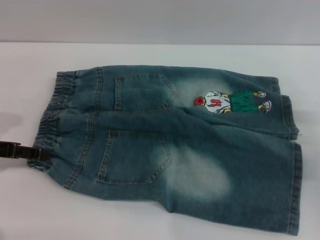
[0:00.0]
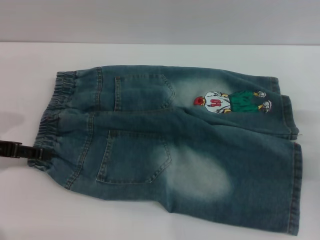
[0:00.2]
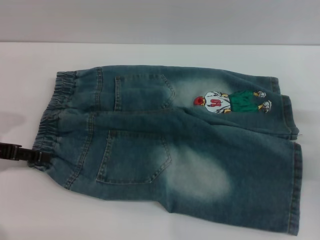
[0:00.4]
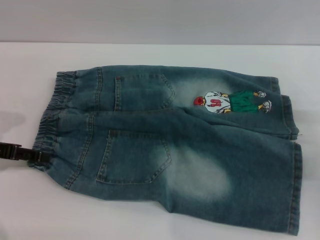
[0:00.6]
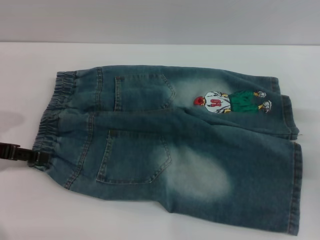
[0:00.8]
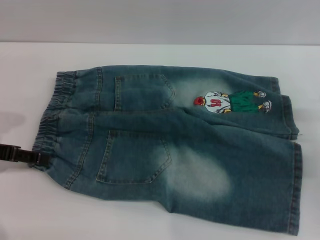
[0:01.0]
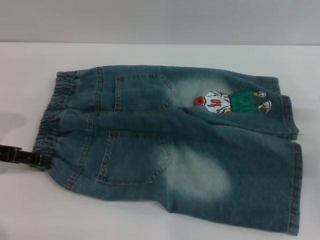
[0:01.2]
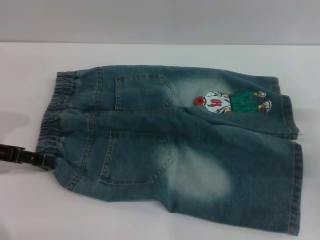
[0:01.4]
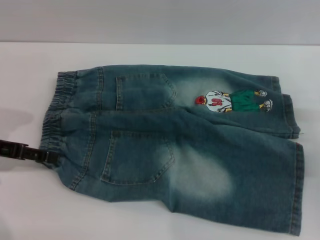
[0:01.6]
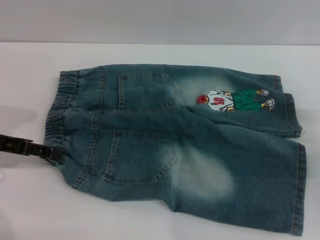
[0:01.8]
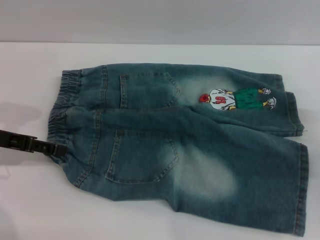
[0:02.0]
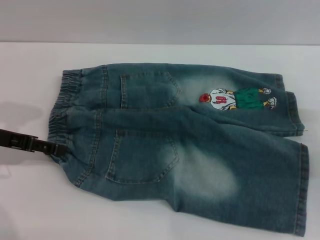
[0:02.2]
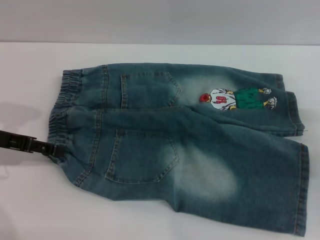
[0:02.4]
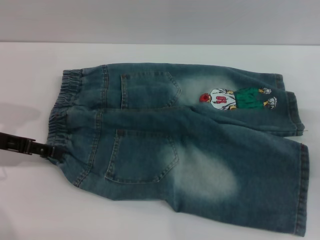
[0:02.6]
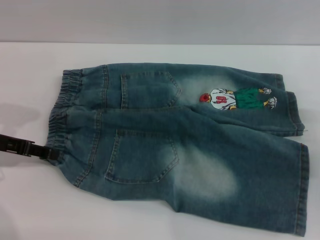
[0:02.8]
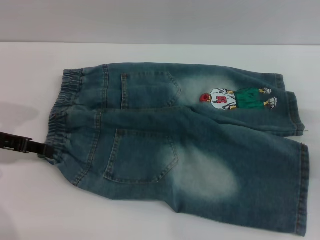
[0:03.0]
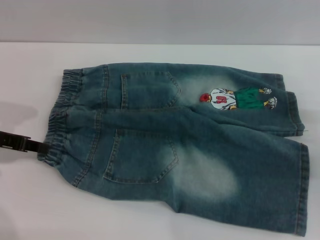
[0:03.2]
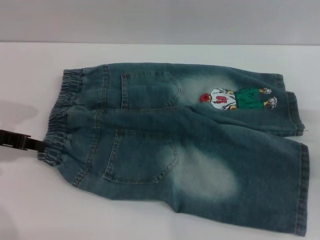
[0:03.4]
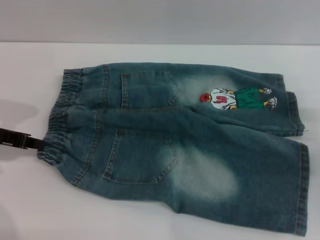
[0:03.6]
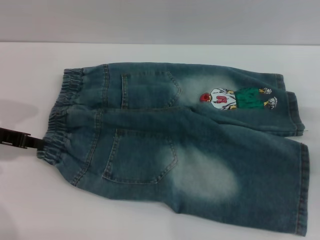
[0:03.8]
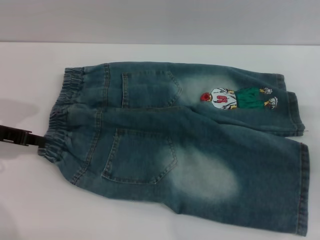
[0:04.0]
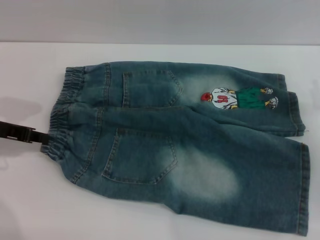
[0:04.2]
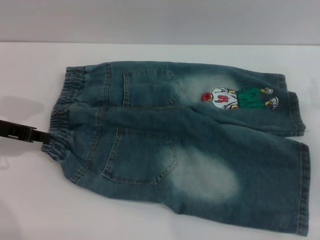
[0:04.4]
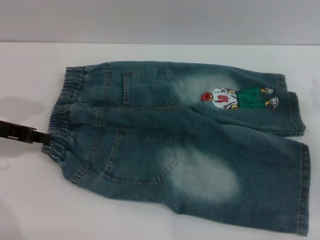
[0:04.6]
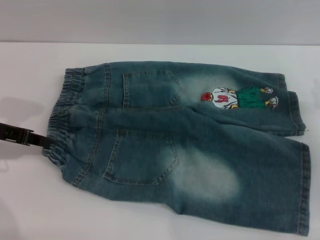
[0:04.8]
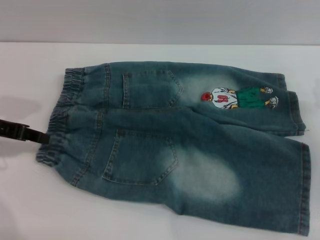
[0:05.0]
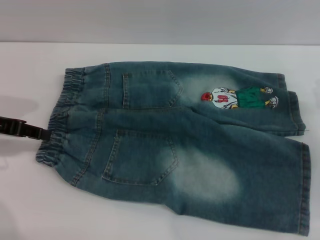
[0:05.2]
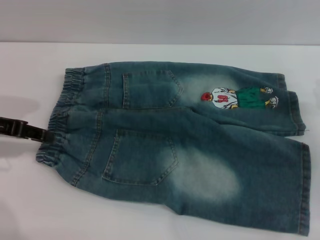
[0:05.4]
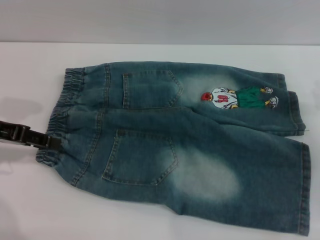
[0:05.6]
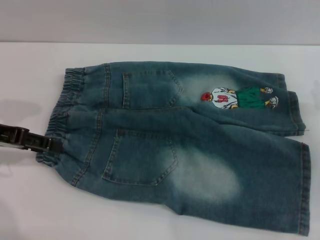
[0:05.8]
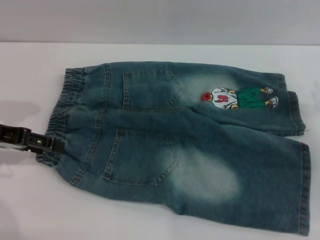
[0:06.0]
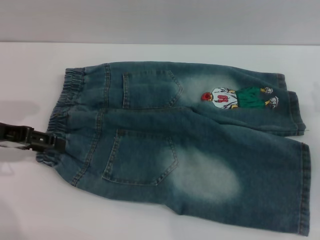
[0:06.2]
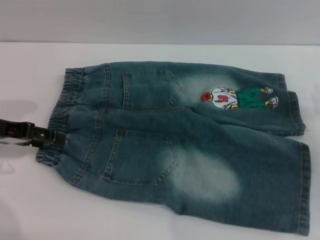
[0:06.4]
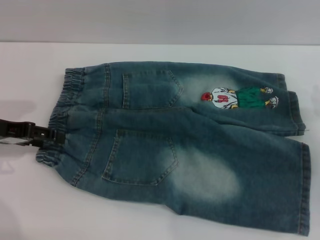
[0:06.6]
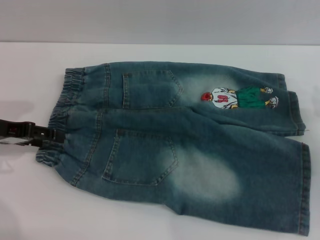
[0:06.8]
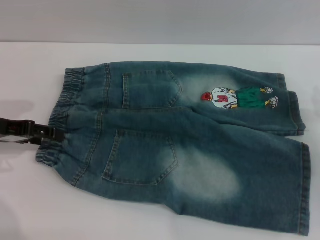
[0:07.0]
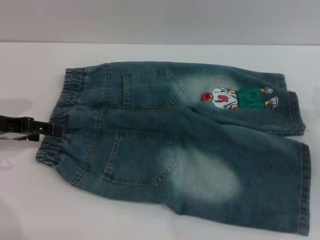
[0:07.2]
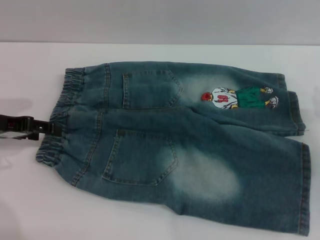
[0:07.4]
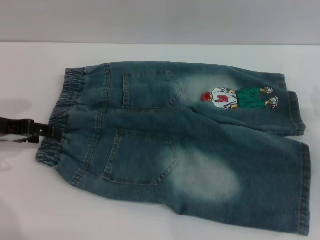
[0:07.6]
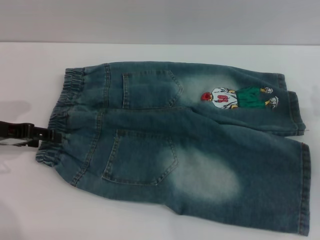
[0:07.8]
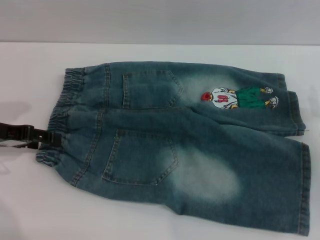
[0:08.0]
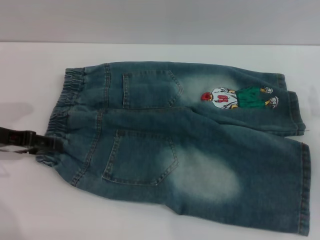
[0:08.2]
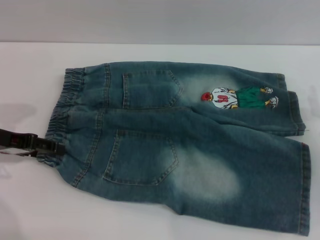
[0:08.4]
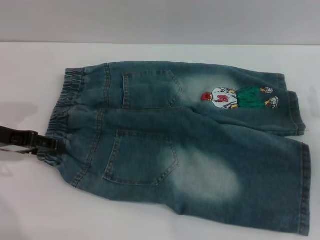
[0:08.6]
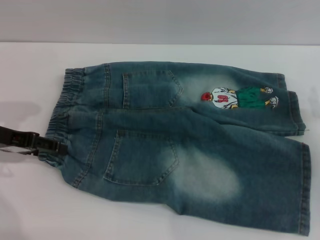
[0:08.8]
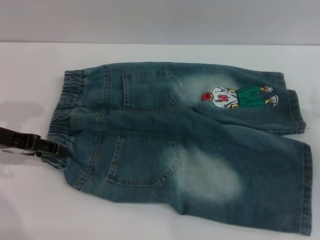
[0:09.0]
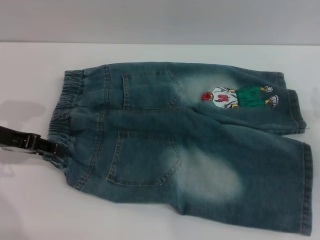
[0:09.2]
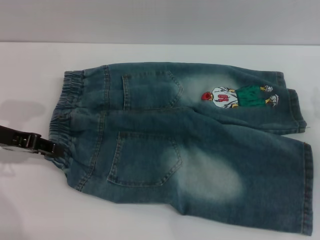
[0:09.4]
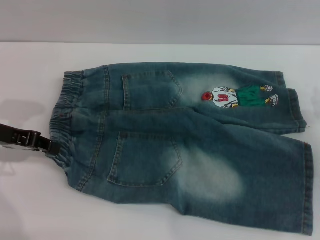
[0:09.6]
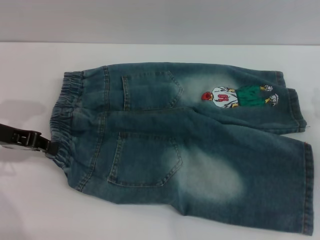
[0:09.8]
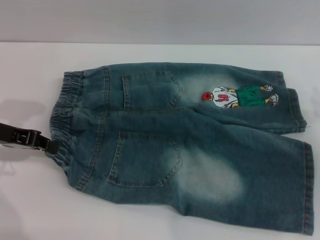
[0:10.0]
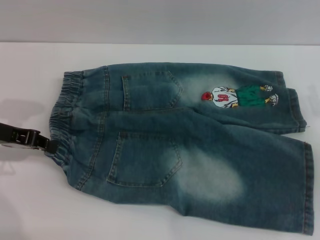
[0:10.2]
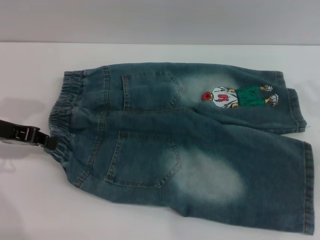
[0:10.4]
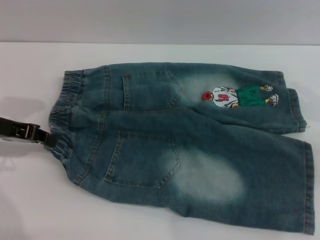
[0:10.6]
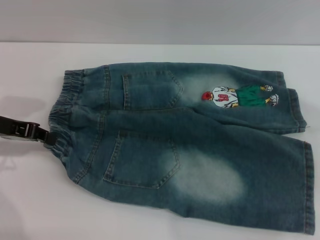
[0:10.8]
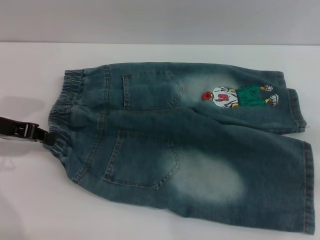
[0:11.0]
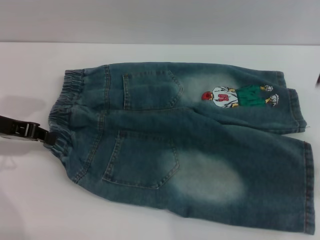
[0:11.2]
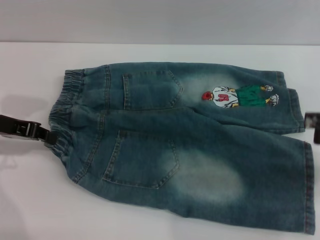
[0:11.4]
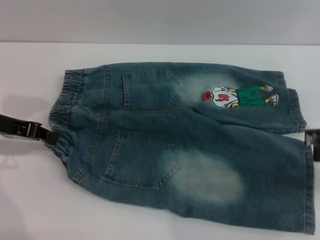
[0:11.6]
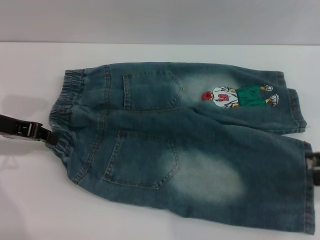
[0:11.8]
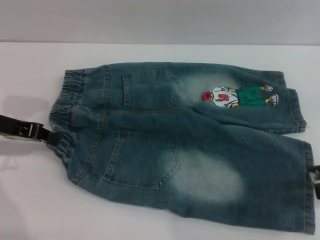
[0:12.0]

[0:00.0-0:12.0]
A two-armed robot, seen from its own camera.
0:00.0 to 0:03.0: The grippers stay close to where they were, moving slightly.
0:03.0 to 0:04.4: The left gripper closes its fingers.
0:04.4 to 0:06.0: The left gripper opens up.
0:06.0 to 0:09.0: The grippers stay close to where they were, moving slightly.
0:09.0 to 0:10.4: The left gripper closes its fingers; the right gripper goes about 5 cm upward.
0:10.4 to 0:12.0: The right gripper shifts approximately 5 cm upward.

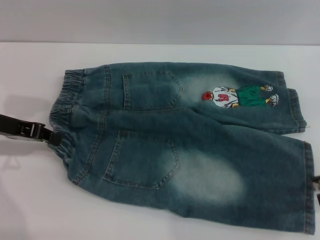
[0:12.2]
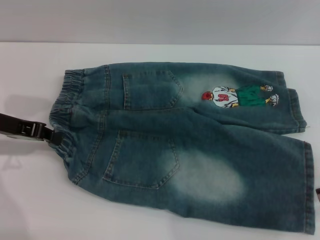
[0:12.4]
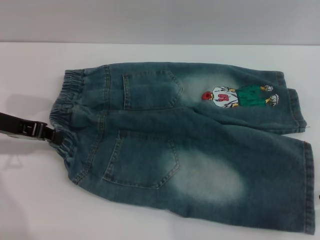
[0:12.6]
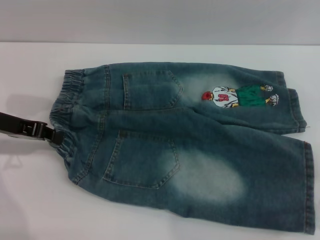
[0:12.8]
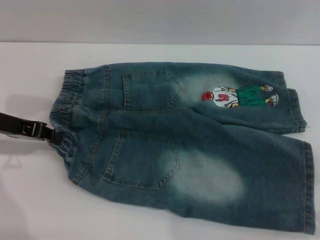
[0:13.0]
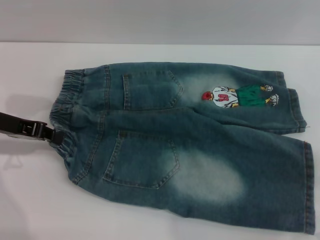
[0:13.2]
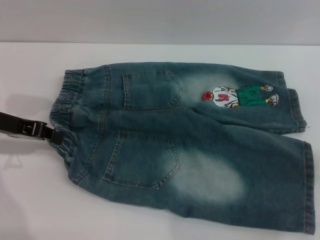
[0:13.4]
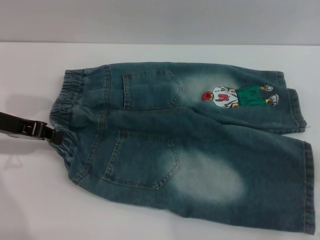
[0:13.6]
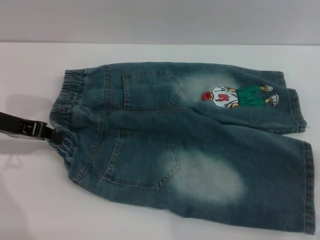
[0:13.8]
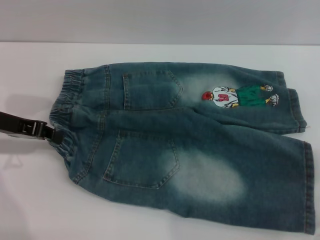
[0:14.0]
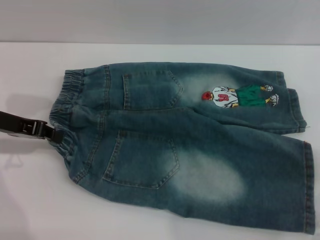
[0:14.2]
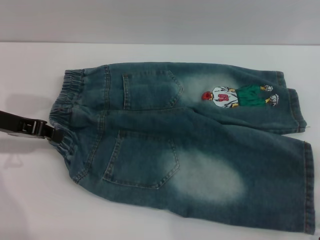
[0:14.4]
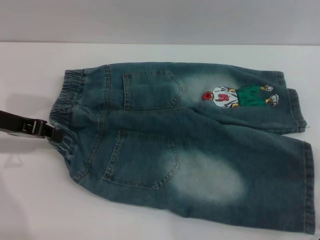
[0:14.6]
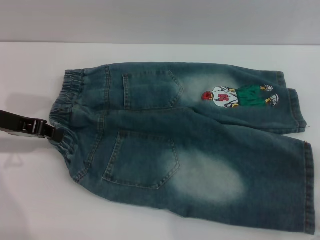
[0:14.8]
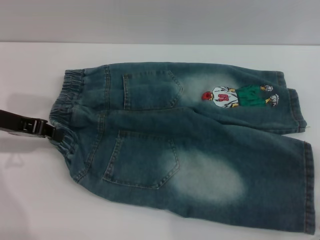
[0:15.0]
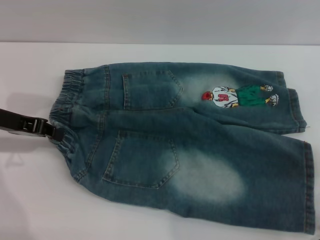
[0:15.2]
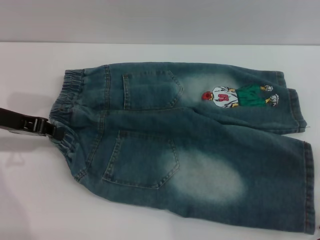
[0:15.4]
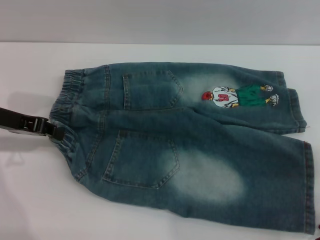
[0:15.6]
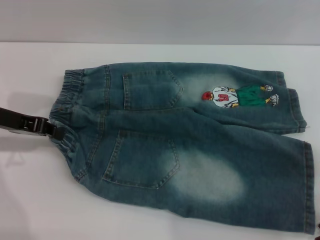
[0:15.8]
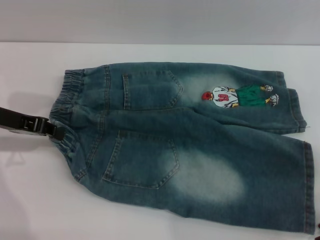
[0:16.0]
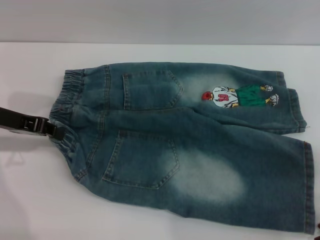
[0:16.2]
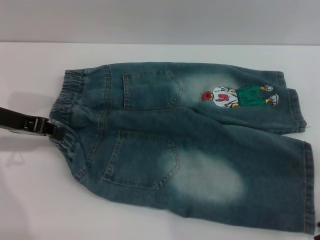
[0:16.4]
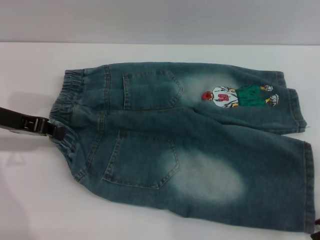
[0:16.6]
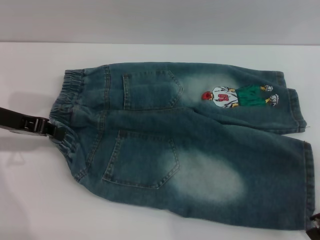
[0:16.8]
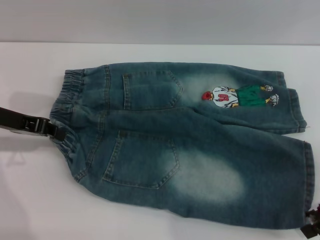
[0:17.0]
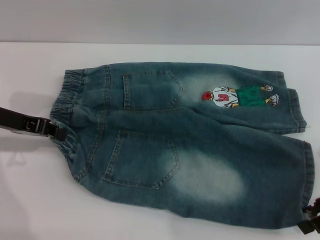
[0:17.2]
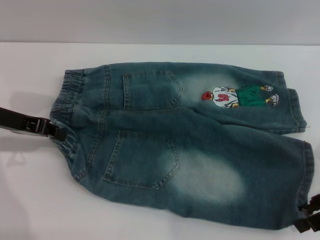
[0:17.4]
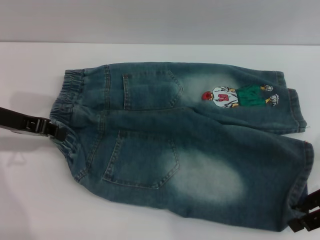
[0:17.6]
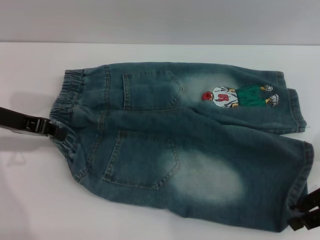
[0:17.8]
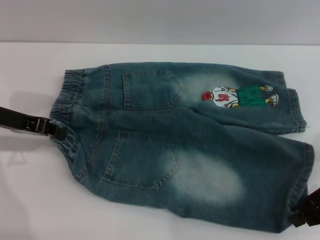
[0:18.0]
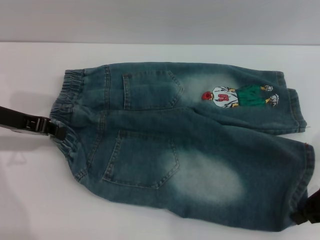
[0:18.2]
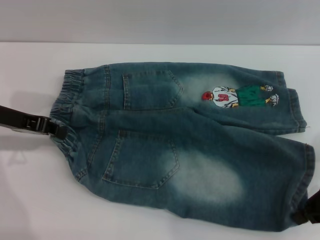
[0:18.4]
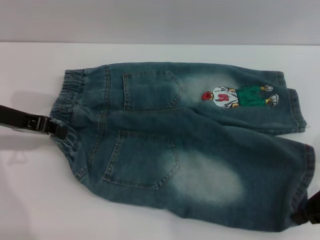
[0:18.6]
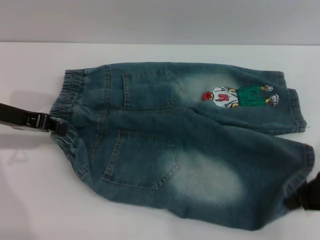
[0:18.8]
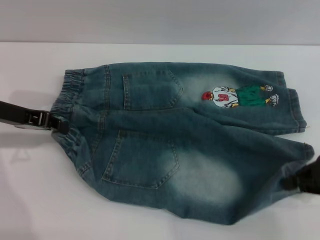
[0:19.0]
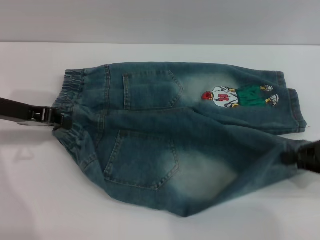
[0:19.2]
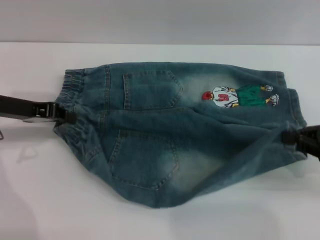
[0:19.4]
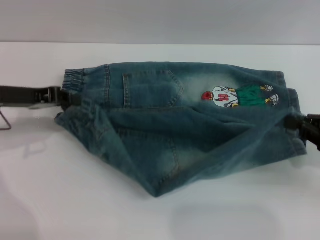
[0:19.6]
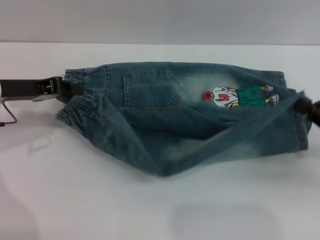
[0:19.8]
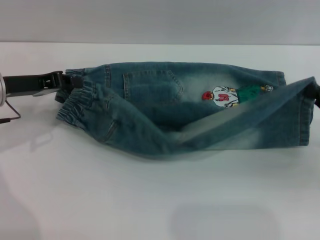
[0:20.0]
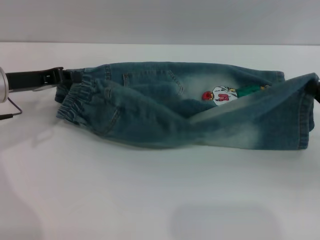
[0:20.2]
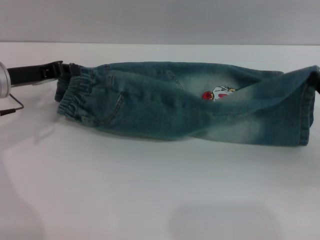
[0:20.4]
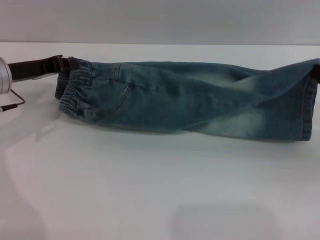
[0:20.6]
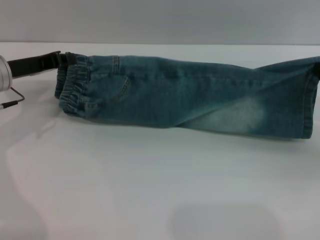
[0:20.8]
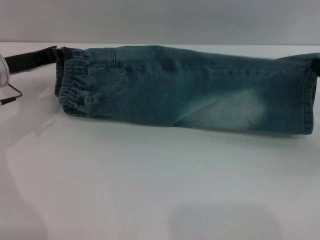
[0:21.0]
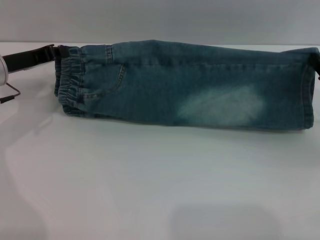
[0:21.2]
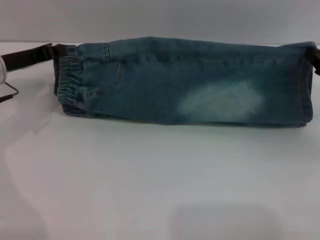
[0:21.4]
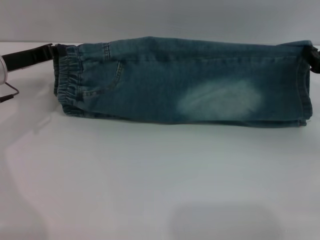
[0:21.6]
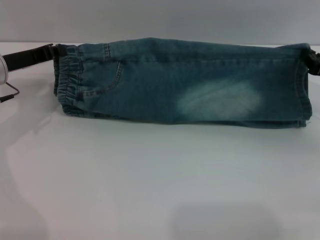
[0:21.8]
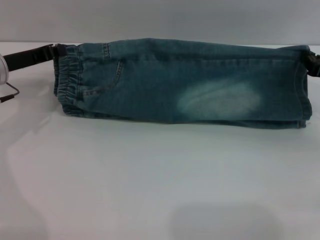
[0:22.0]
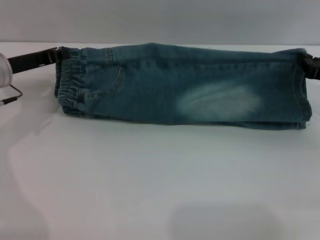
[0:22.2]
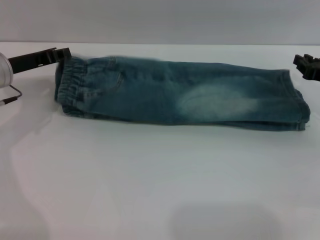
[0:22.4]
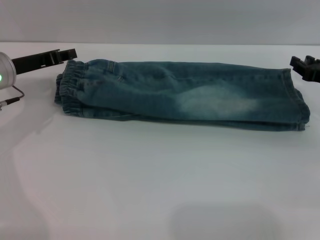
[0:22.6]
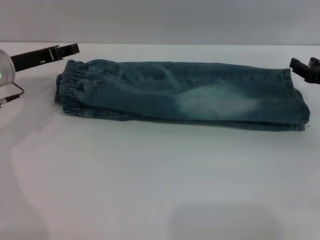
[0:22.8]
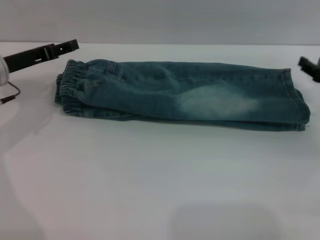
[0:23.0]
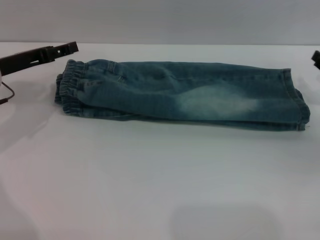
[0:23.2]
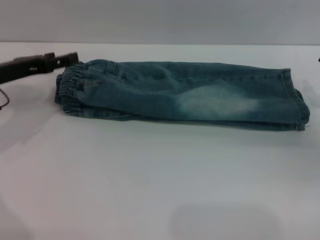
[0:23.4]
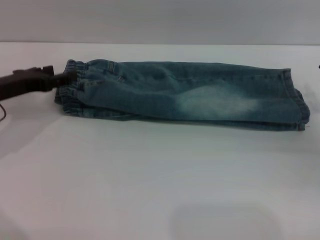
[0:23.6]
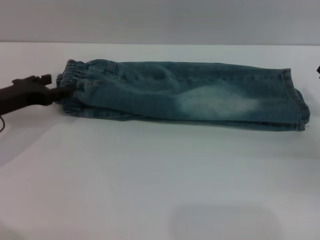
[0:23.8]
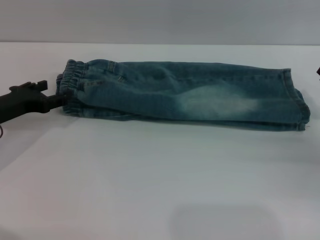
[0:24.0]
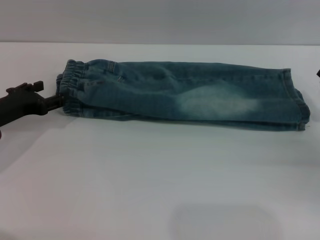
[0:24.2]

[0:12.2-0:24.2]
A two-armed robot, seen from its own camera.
Step, 0:12.2 to 0:23.0: Fold the bottom of the pants upward with both grippers.
0:13.8 to 0:15.2: The grippers stay close to where they were, moving slightly.
0:15.2 to 0:16.6: The two grippers keep their place.
0:16.6 to 0:18.2: The right gripper closes.
0:18.2 to 0:19.8: The right gripper closes up.
0:19.8 to 0:21.2: The right gripper is displaced forward by approximately 5 cm.
0:21.2 to 0:22.6: The grippers stay close to where they were, moving slightly.
0:22.6 to 0:24.2: The grippers both shift backward by about 5 cm. The left gripper opens its fingers. Meanwhile the right gripper opens its fingers.
